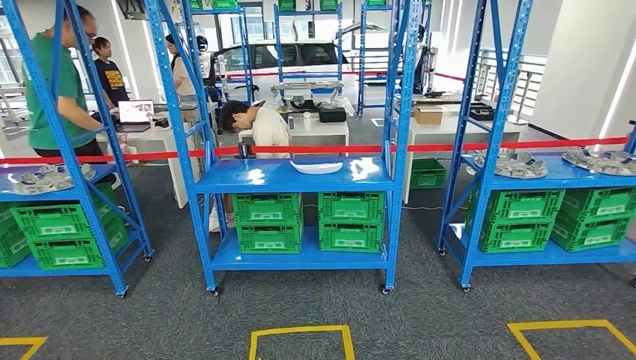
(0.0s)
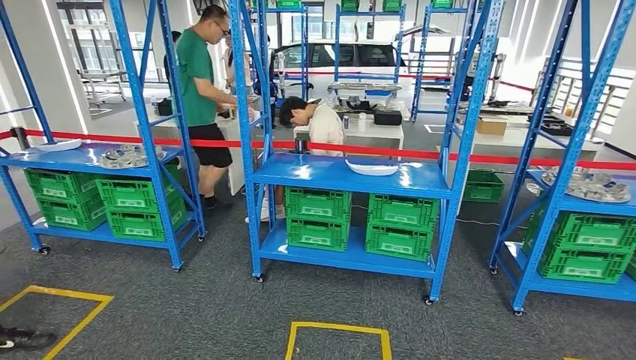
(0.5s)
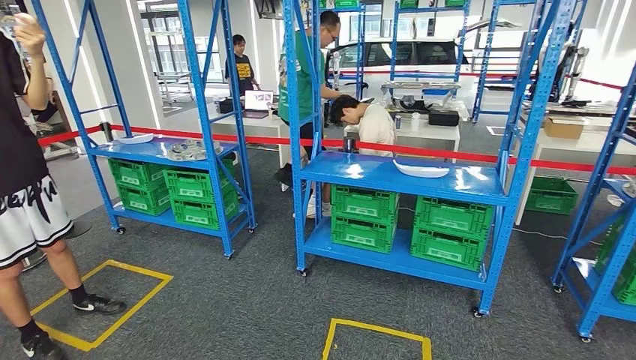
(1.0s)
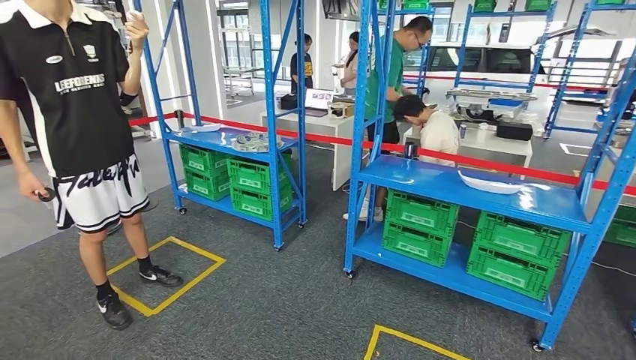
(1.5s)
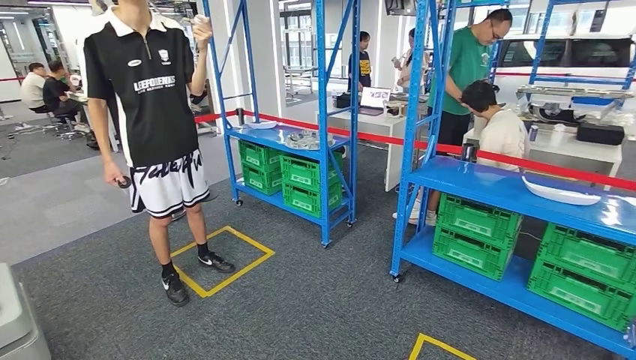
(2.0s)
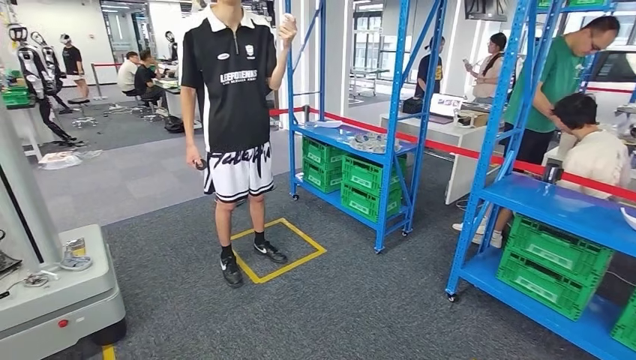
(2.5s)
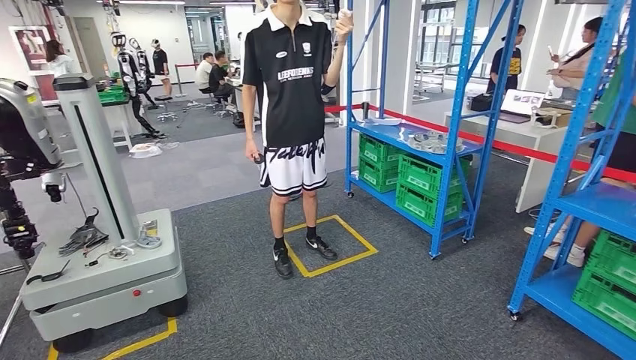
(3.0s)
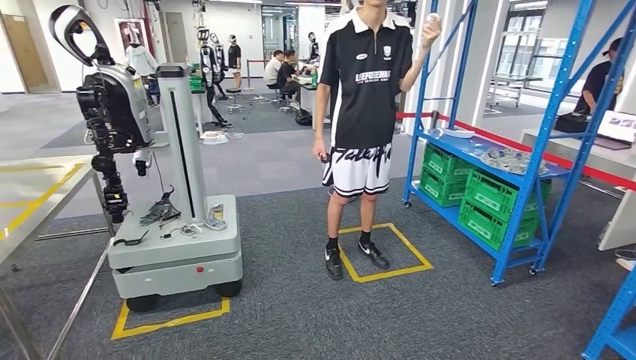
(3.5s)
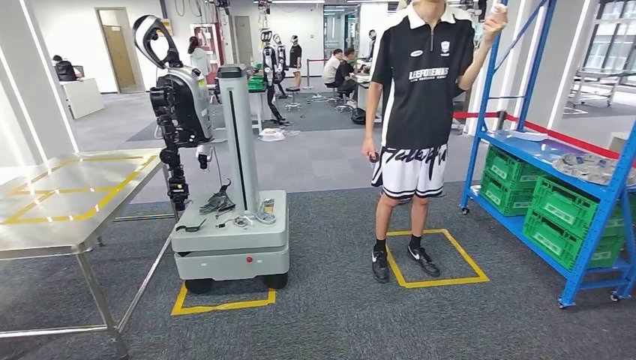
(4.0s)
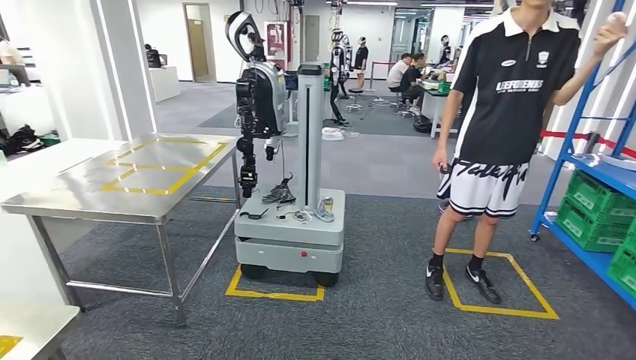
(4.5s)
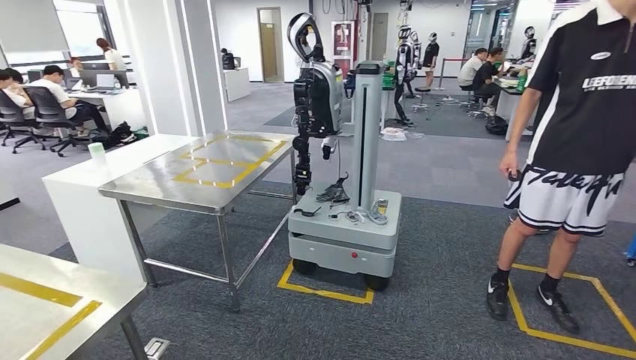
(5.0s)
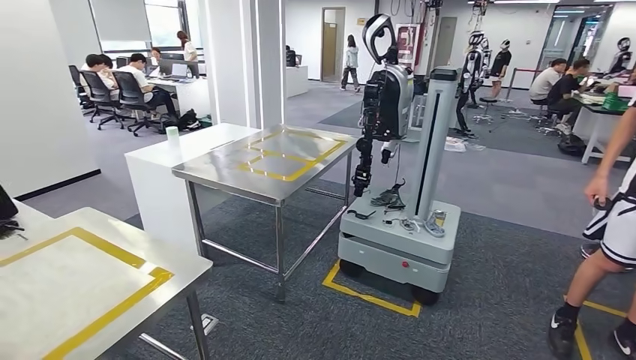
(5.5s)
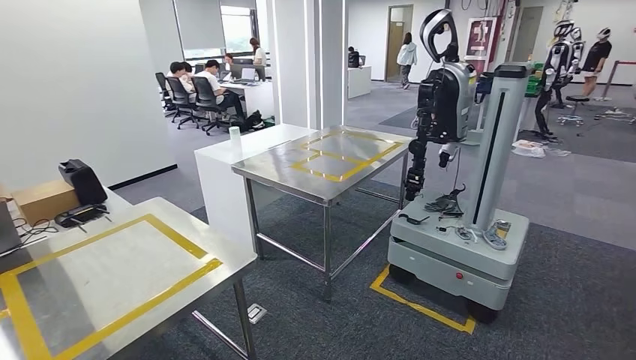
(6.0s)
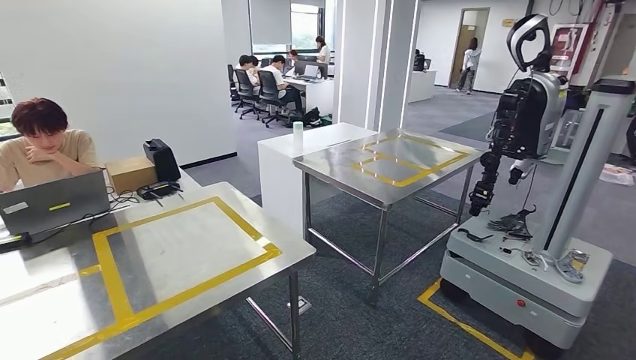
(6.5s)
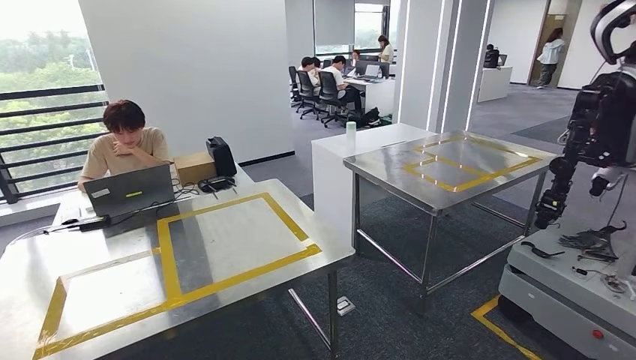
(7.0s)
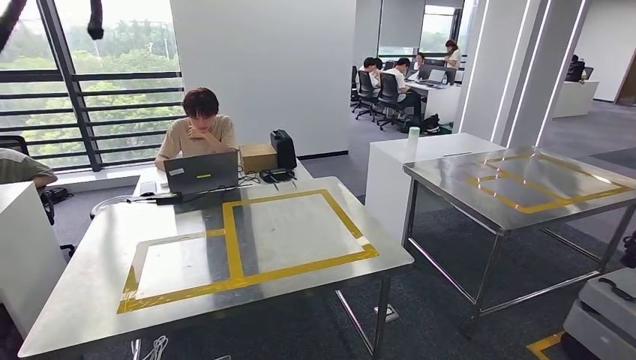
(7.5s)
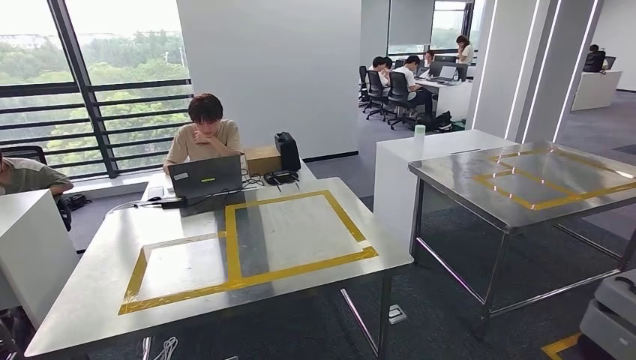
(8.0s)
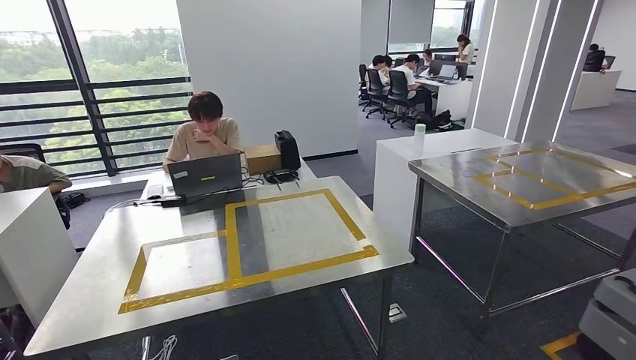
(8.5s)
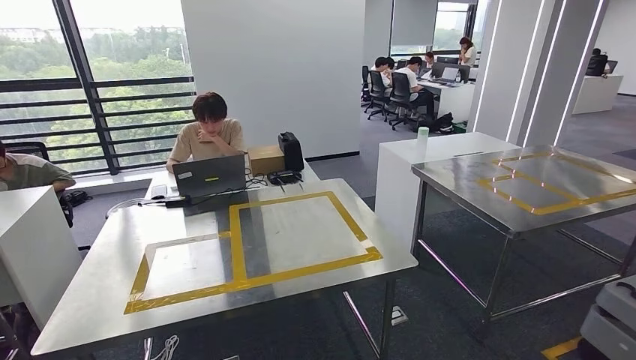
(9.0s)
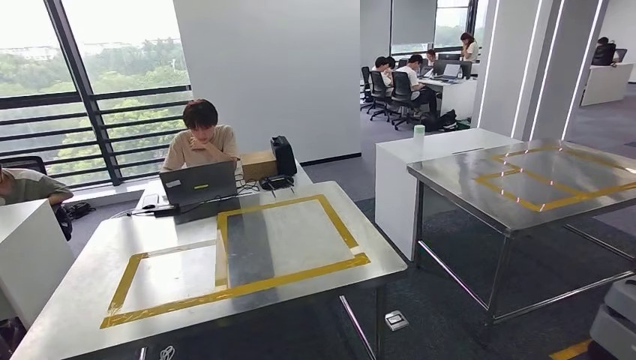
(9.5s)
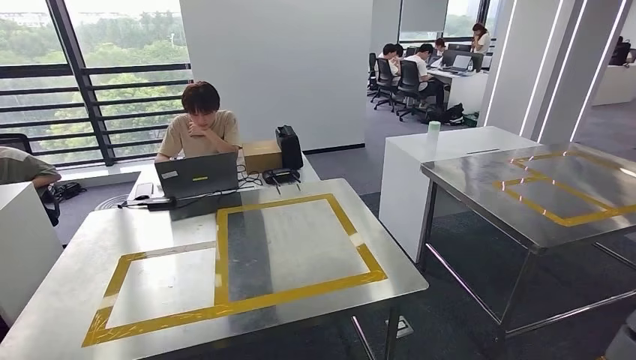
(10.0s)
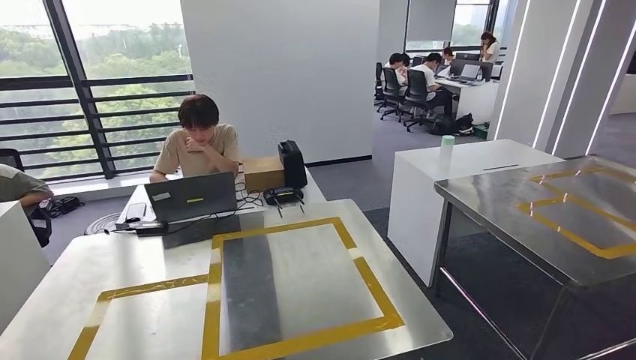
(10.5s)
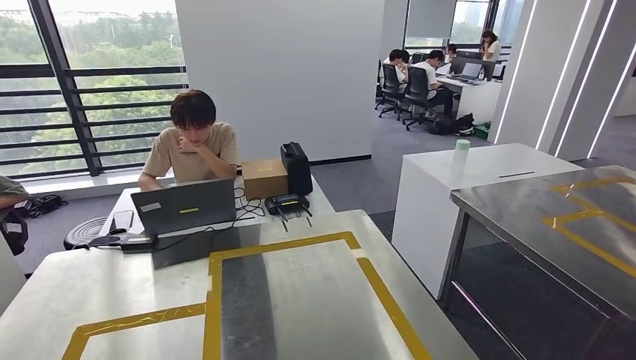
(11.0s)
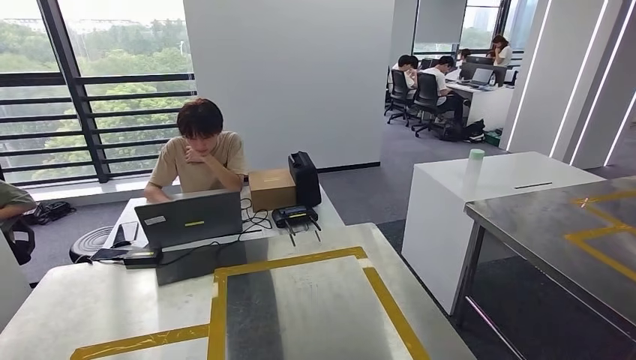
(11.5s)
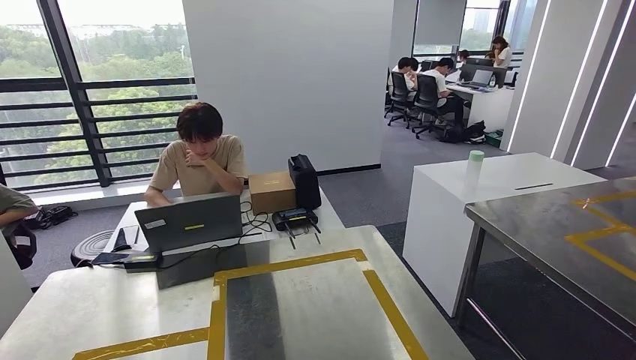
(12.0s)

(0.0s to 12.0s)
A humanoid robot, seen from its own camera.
Step, 0.0s - 6.5s: Move the small parts to the workbench.

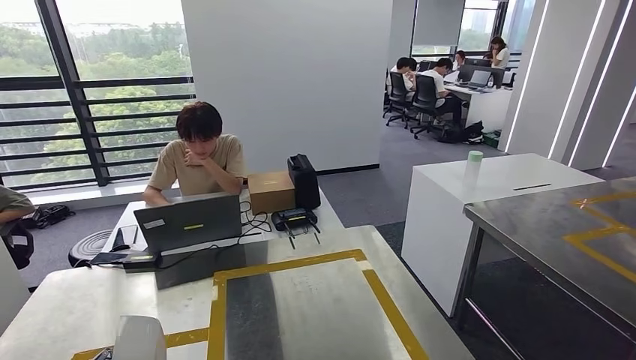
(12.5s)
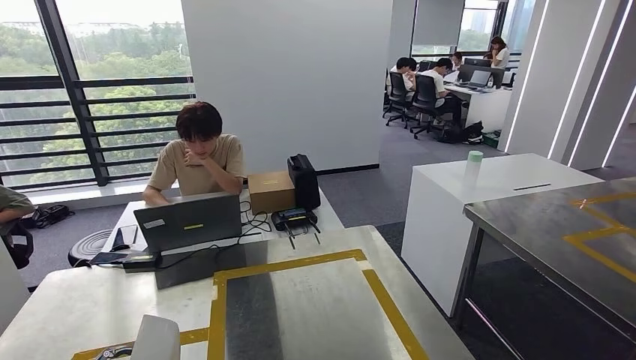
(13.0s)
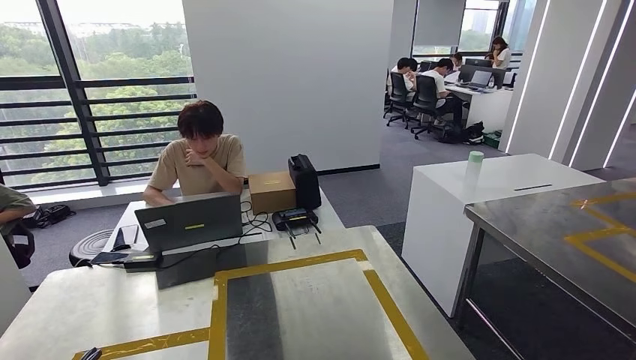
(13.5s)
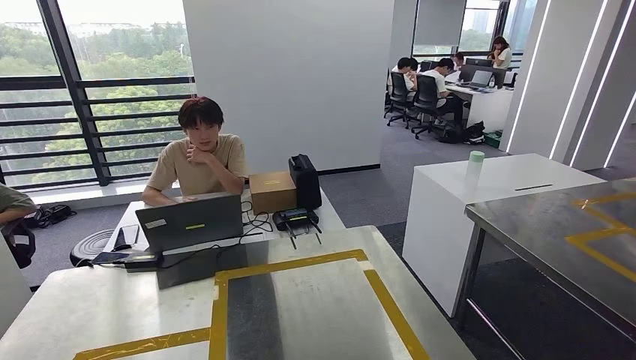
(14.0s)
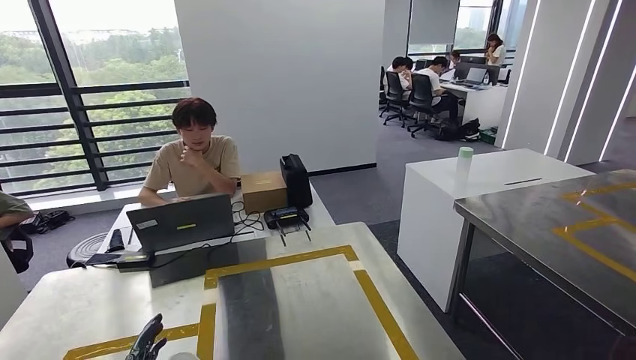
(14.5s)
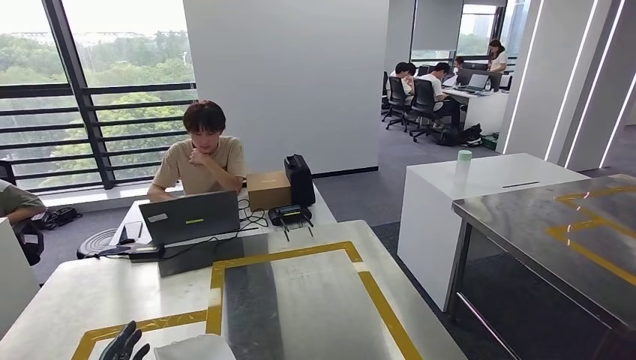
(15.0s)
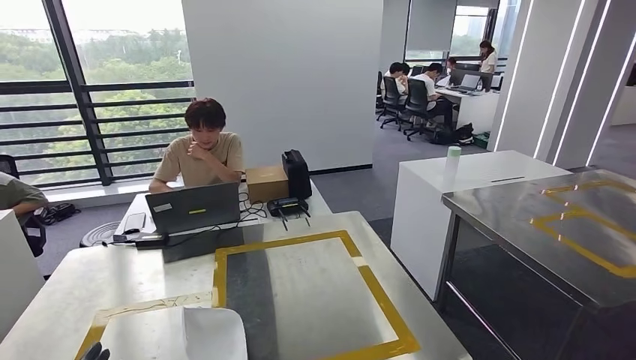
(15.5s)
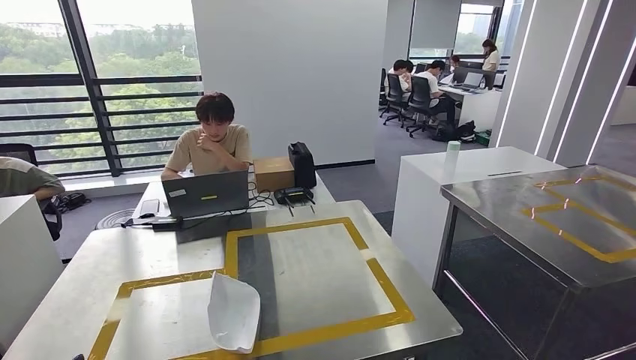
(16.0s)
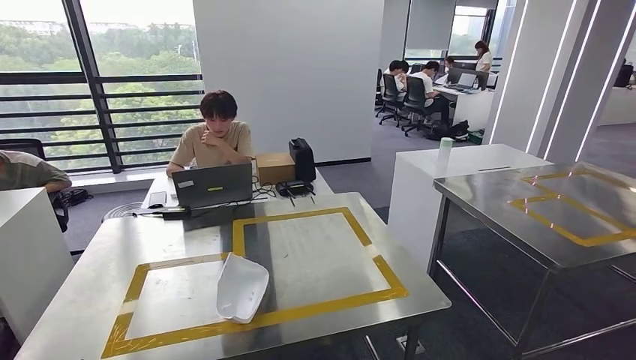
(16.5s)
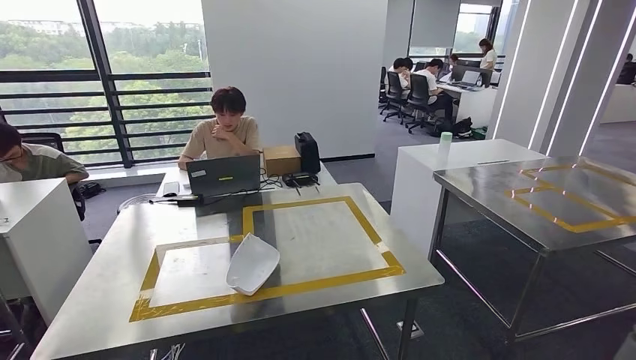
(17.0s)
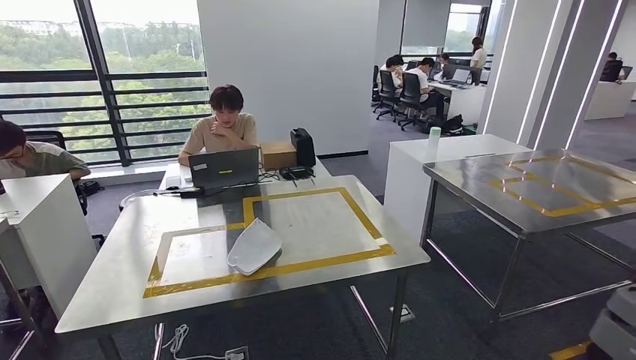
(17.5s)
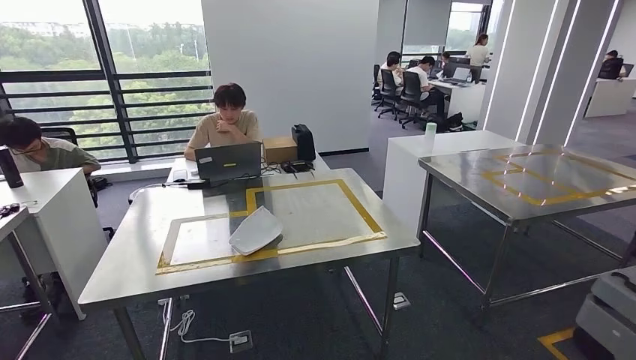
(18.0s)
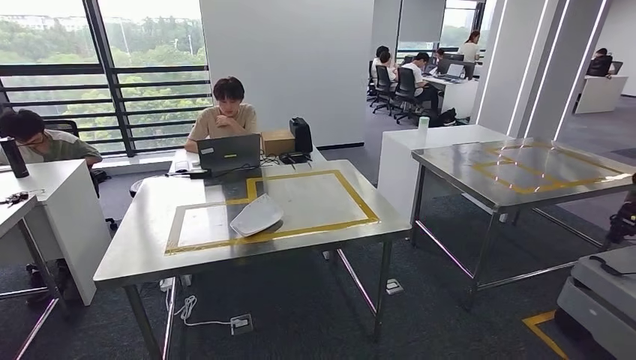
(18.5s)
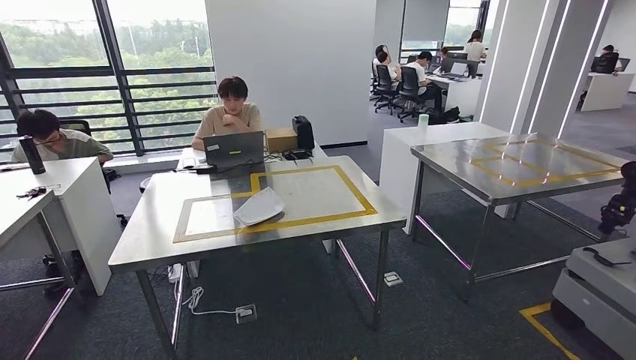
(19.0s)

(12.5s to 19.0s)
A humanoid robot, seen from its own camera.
Step, 12.5s - 16.0s: Insert the small parts into the corresponding holes on the workbench.
Step, 16.5s - 19.0s: Move to the initial position of the workbench.

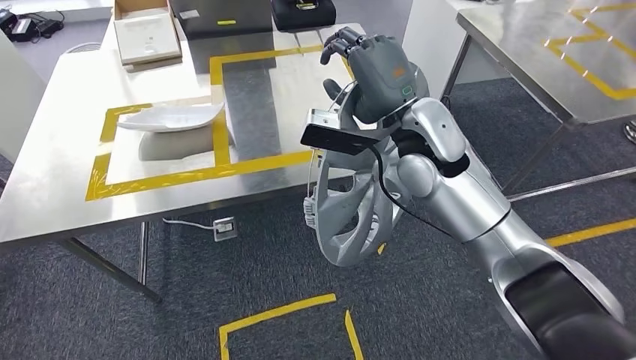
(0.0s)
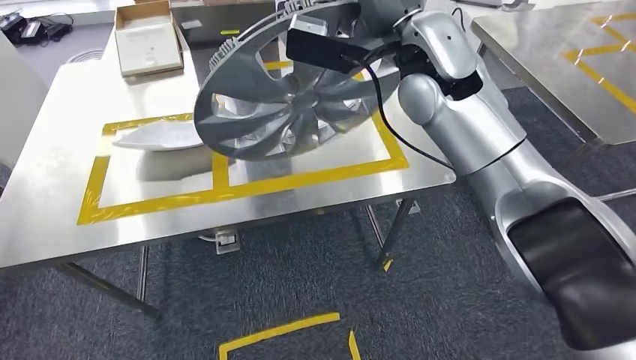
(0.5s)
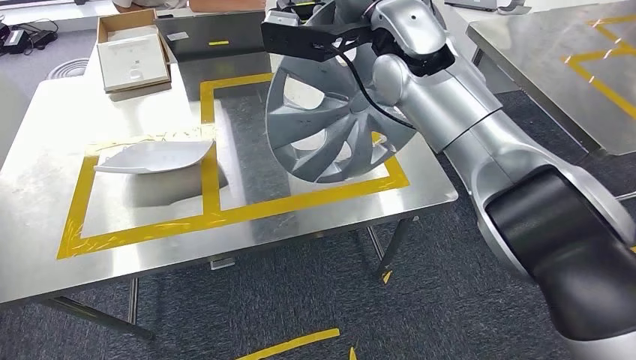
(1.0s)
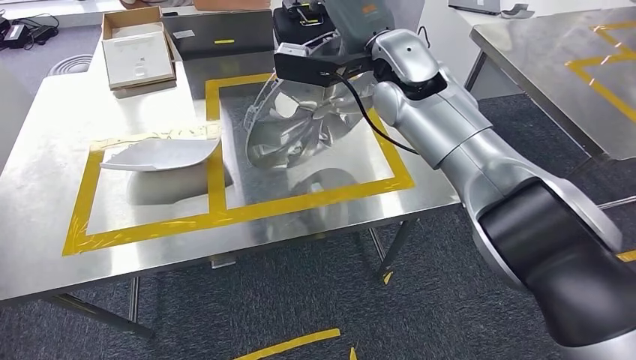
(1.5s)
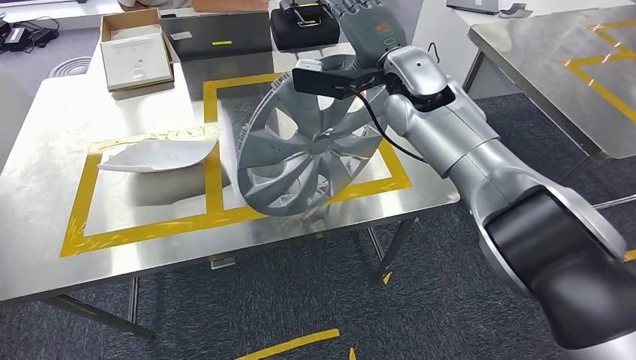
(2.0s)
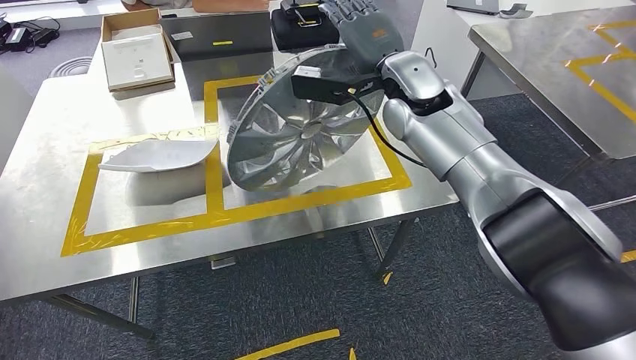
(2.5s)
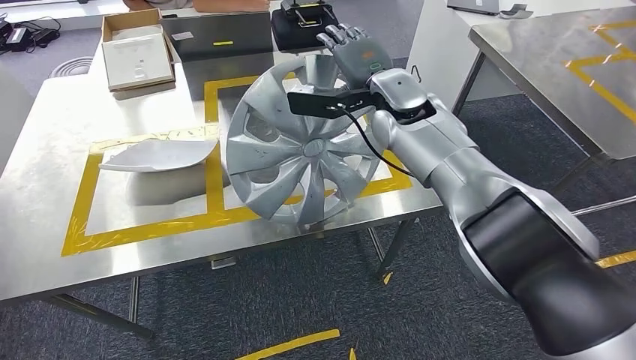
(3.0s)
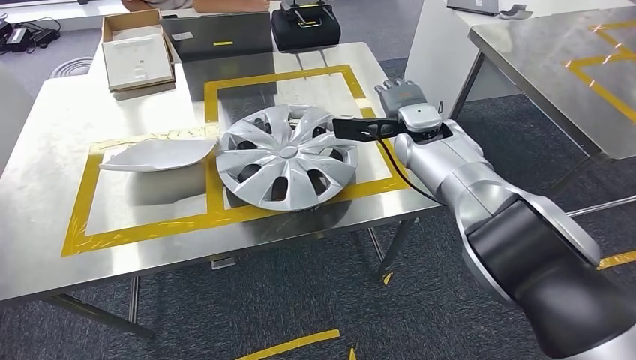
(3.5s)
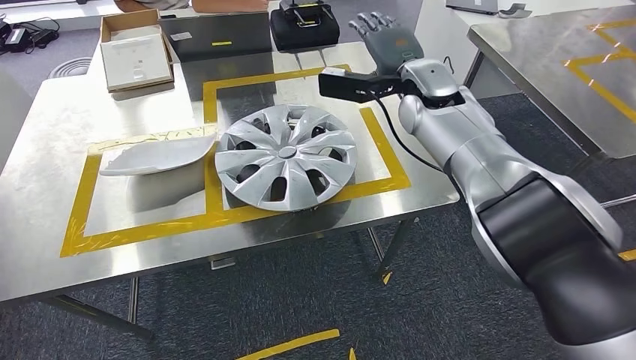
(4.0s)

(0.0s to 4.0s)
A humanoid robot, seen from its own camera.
Step, 0.5s - 3.0s: Insert the small parts into the corresponding holes on the workbench.
Step, 3.5s - 4.0s: Move to the initial position of the workbench.
